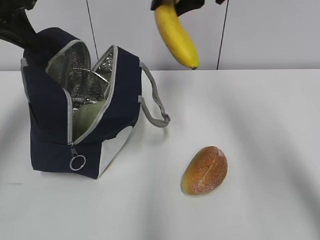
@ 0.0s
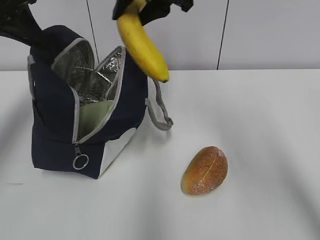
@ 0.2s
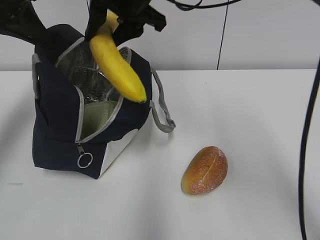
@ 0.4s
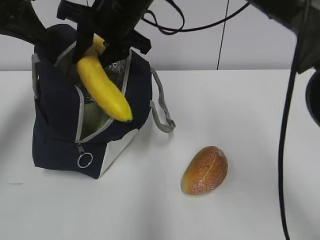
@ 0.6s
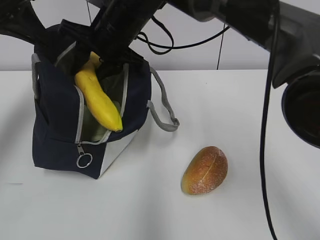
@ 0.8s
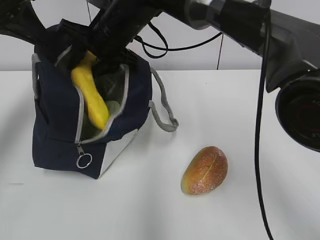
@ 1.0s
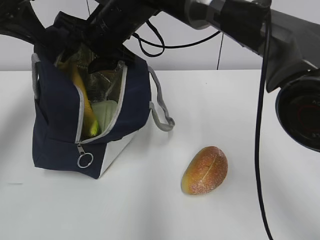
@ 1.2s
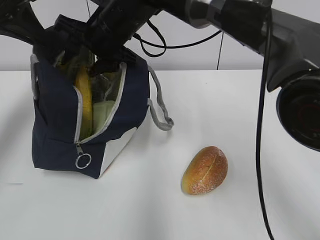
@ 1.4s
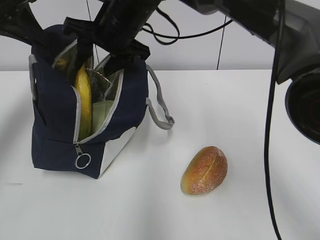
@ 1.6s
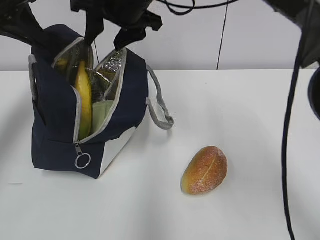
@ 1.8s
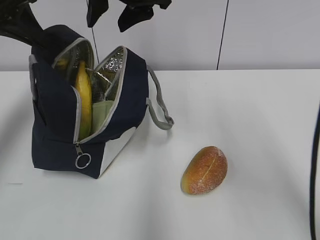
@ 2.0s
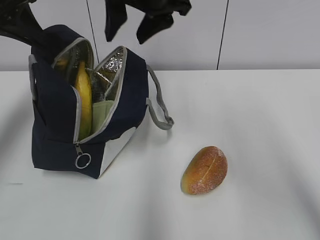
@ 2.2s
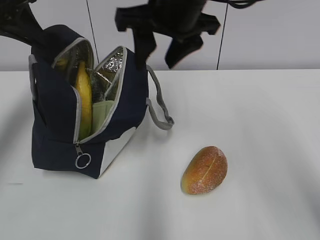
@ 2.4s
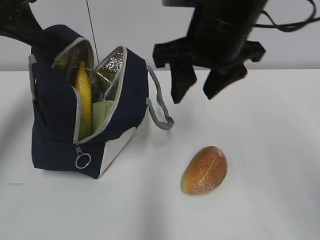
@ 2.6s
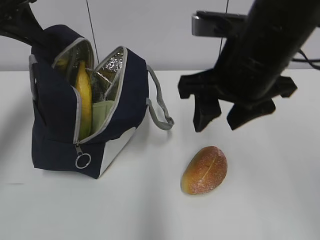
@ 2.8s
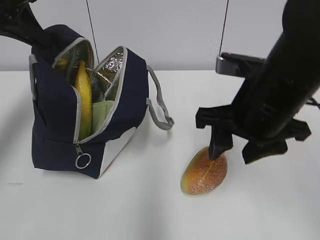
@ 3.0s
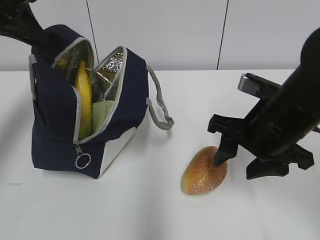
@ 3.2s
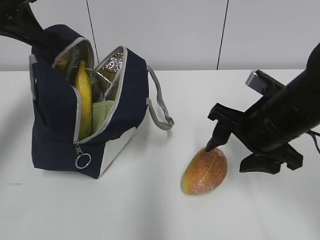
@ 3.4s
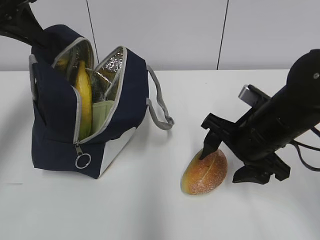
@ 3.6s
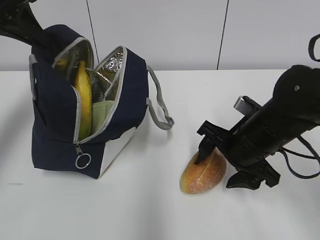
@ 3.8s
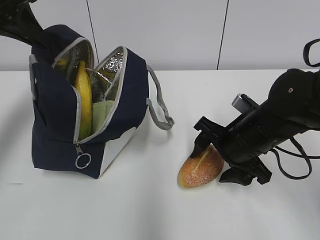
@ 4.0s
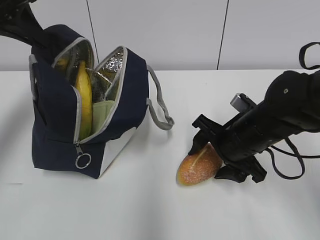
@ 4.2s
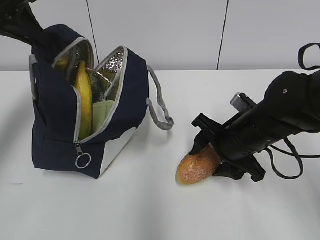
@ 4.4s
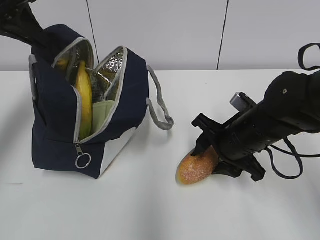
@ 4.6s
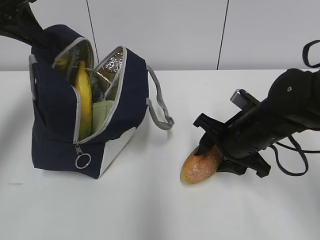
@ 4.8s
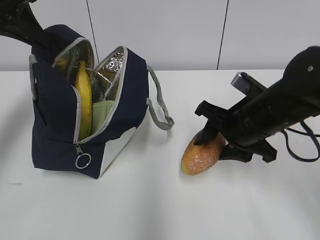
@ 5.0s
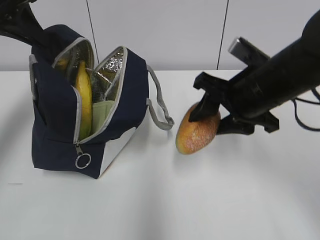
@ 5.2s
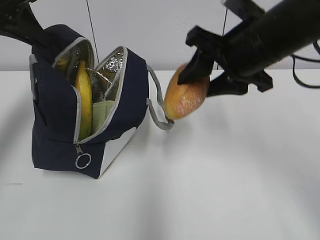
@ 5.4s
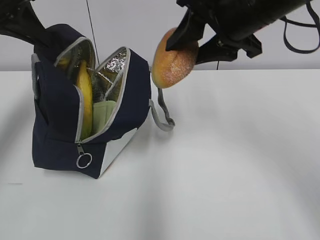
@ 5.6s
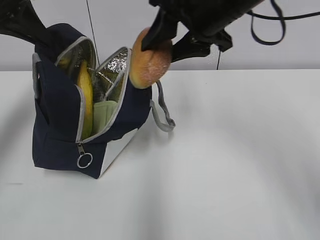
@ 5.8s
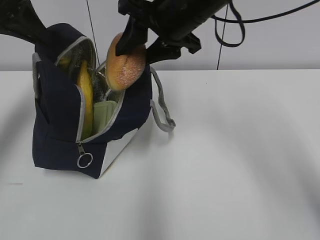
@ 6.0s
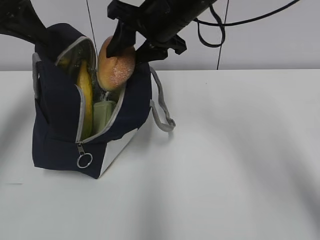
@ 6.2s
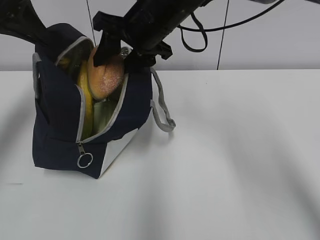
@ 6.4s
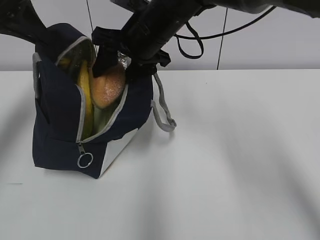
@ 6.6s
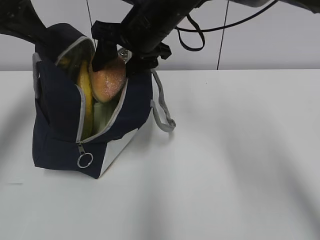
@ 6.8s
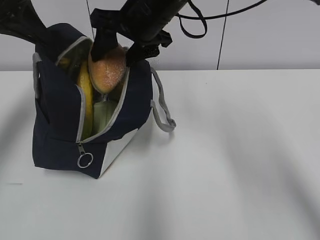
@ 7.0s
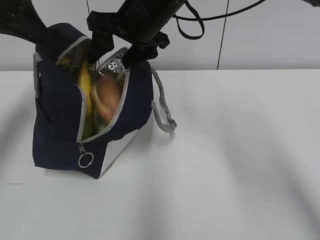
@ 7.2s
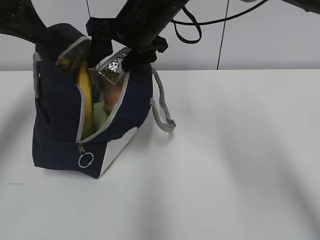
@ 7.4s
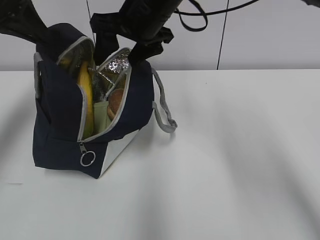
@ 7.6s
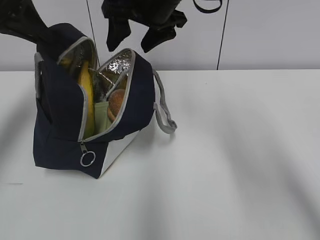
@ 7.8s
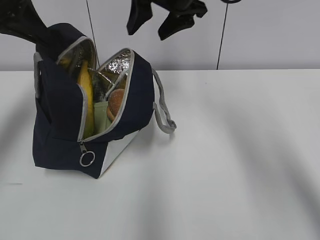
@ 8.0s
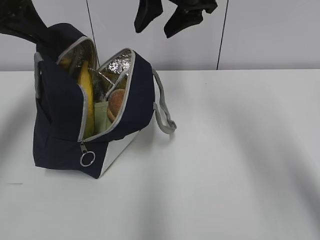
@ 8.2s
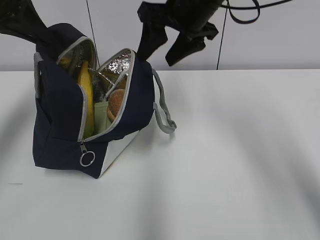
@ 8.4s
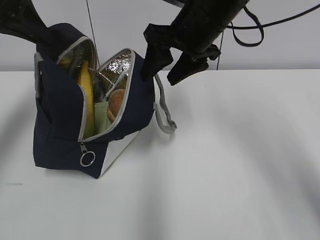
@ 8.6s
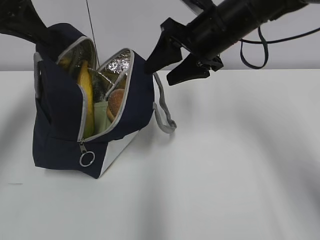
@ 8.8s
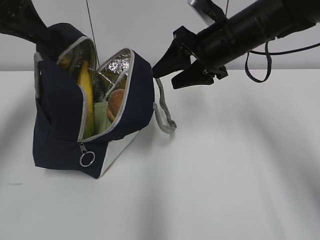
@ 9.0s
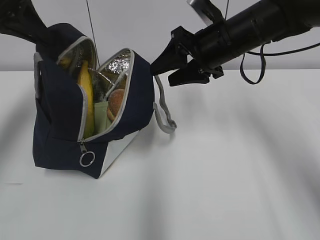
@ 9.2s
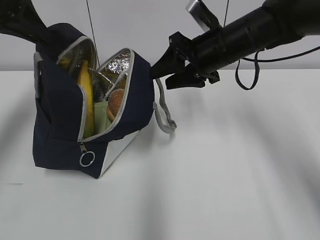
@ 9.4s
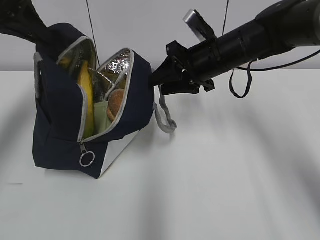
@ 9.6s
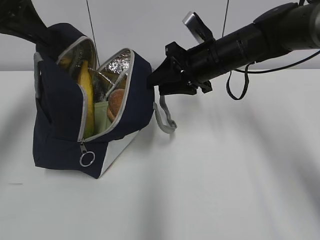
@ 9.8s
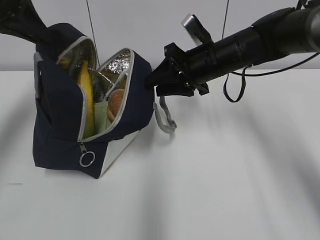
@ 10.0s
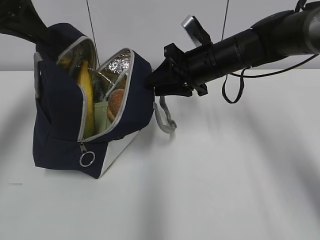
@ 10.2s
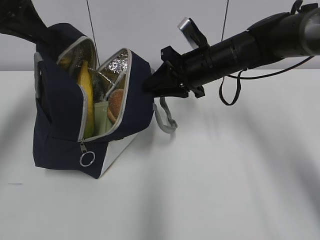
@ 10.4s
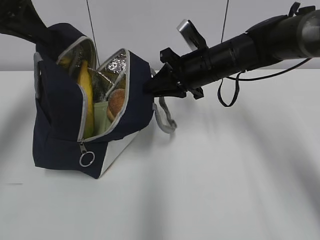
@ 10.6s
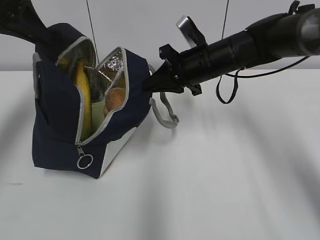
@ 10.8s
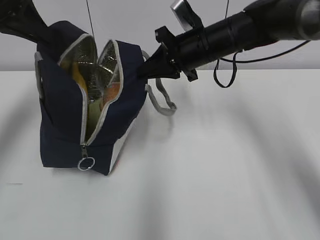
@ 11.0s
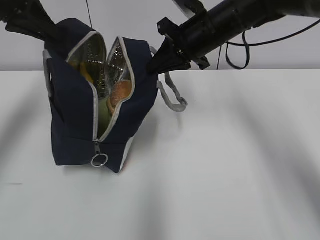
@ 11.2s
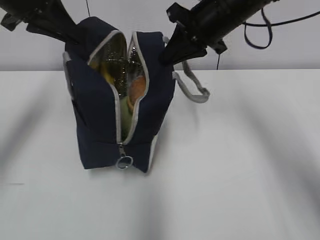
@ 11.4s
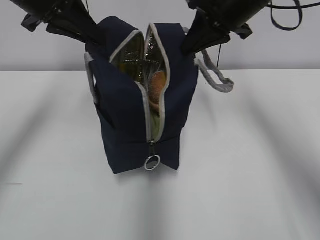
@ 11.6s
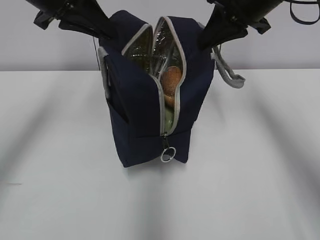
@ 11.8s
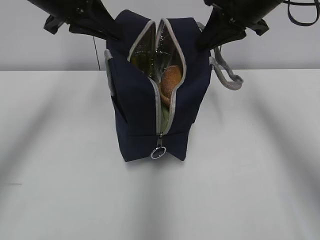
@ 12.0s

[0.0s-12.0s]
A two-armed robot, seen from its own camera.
0.0s to 1.6s: The right gripper goes roughly 15 cm to the left and downward.
1.6s to 3.0s: The right gripper moves to the right and backward, some 25 cm.
3.0s to 4.4s: The right gripper shifts some 10 cm downward.
4.4s to 6.0s: The right gripper travels upward and to the left by about 20 cm.
6.0s to 7.6s: The right gripper shifts some 5 cm to the left.
7.6s to 9.0s: The right gripper heads to the right, covering some 10 cm.
9.0s to 10.4s: The right gripper is displaced downward by approximately 5 cm, and closes up.
10.4s to 12.0s: The left gripper travels to the right by some 10 cm, while the right gripper travels upward and to the right by some 15 cm, and closes its fingers.

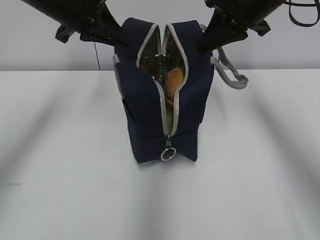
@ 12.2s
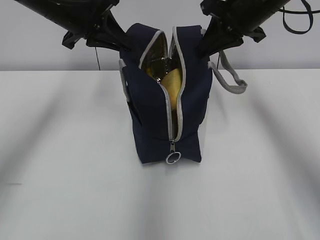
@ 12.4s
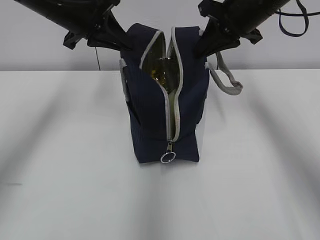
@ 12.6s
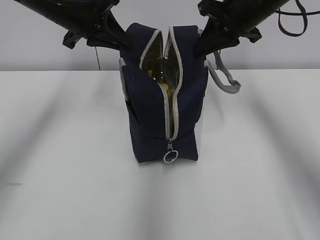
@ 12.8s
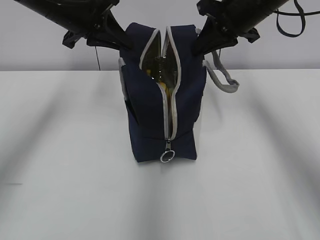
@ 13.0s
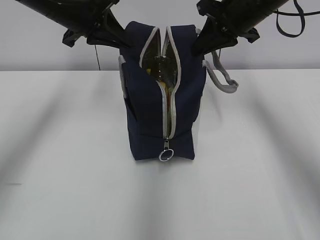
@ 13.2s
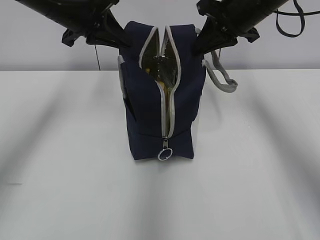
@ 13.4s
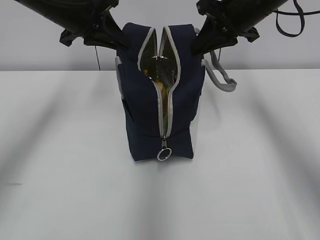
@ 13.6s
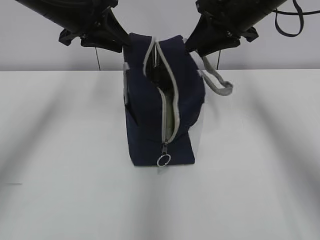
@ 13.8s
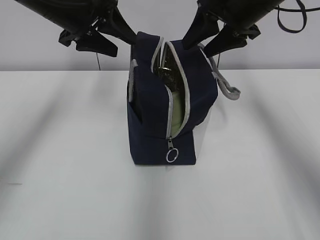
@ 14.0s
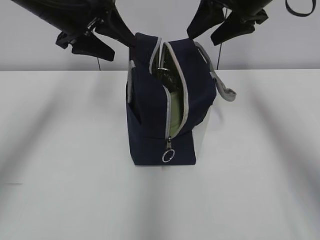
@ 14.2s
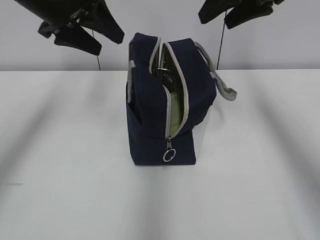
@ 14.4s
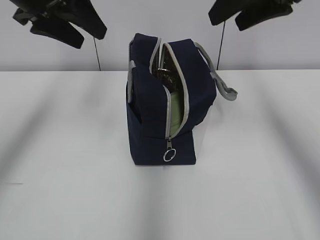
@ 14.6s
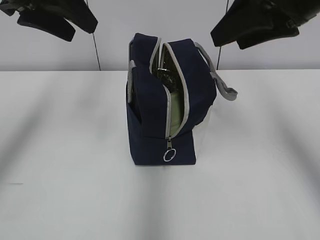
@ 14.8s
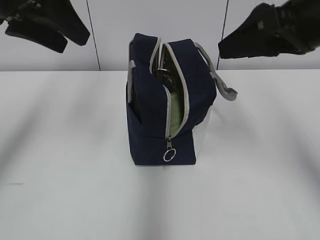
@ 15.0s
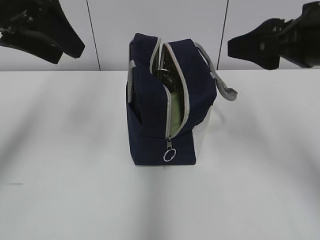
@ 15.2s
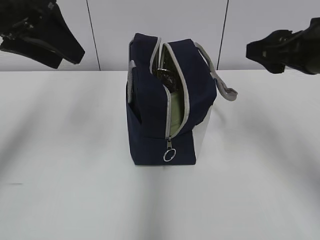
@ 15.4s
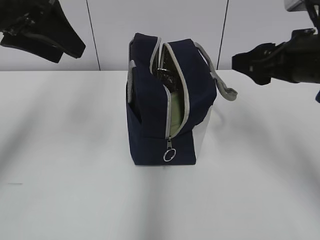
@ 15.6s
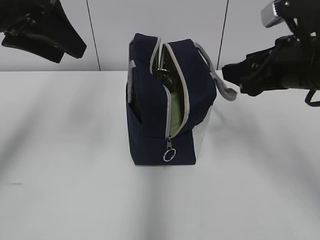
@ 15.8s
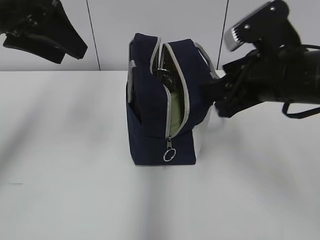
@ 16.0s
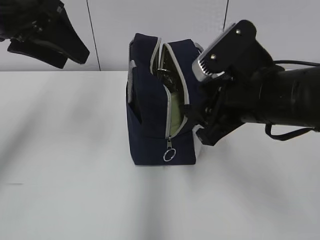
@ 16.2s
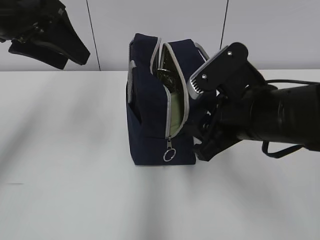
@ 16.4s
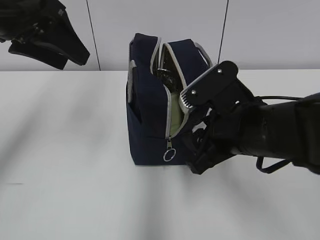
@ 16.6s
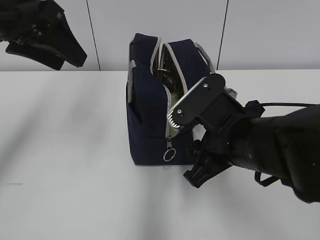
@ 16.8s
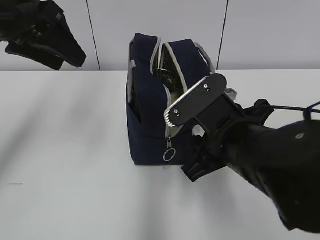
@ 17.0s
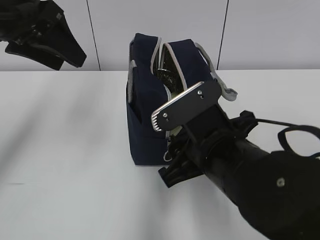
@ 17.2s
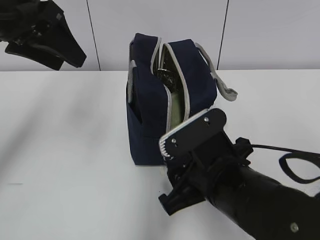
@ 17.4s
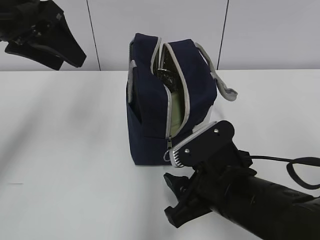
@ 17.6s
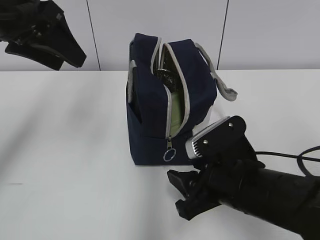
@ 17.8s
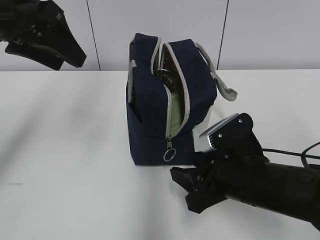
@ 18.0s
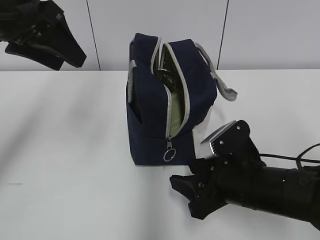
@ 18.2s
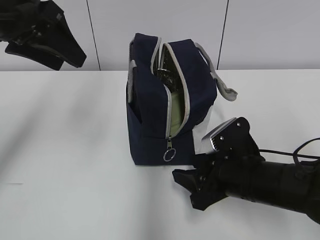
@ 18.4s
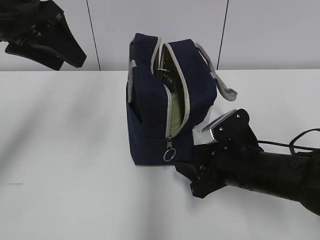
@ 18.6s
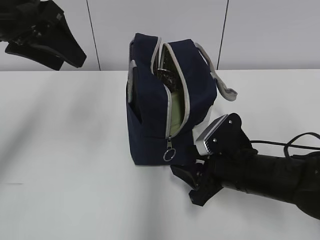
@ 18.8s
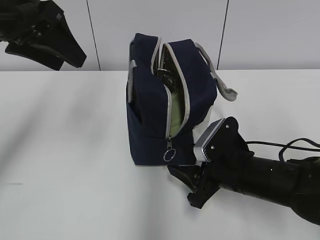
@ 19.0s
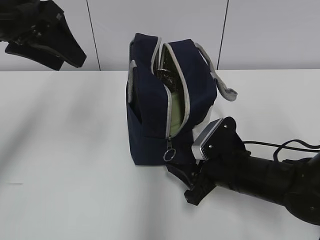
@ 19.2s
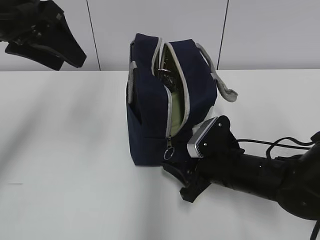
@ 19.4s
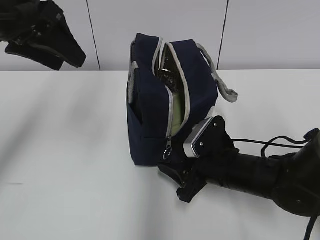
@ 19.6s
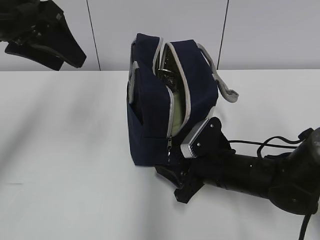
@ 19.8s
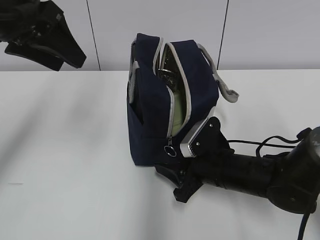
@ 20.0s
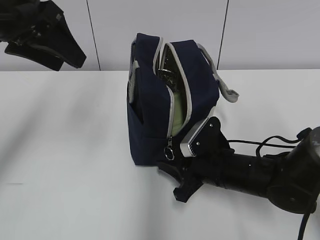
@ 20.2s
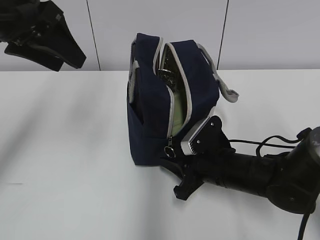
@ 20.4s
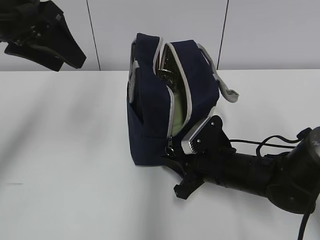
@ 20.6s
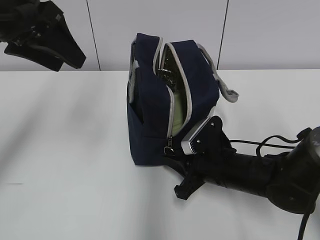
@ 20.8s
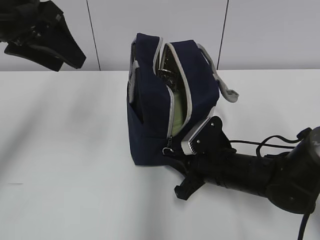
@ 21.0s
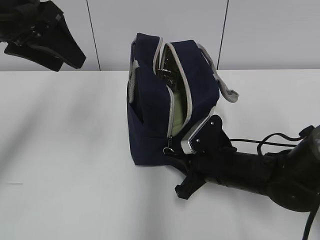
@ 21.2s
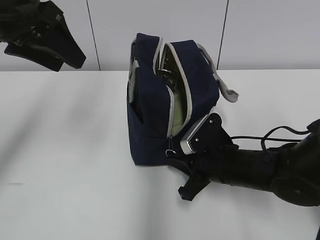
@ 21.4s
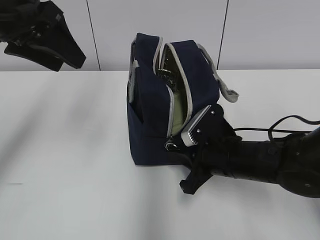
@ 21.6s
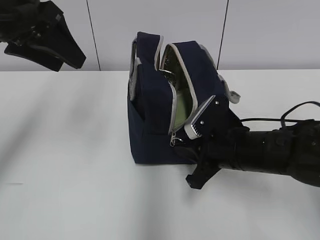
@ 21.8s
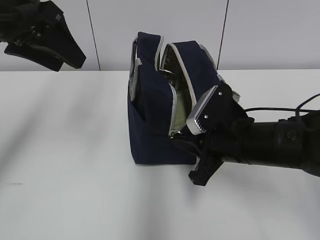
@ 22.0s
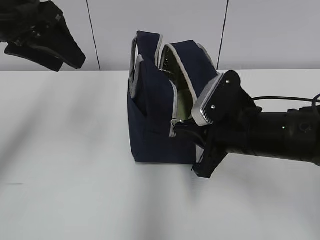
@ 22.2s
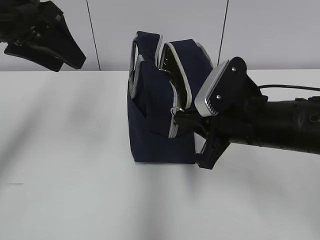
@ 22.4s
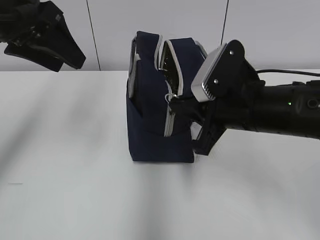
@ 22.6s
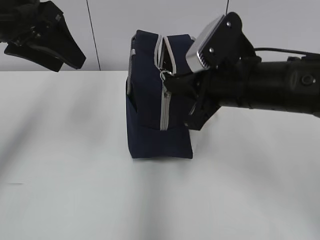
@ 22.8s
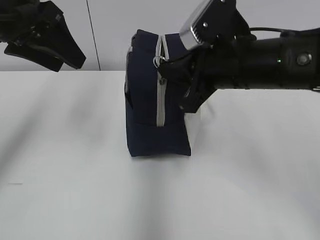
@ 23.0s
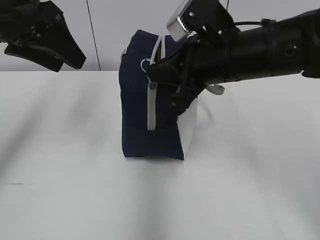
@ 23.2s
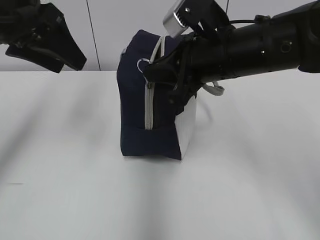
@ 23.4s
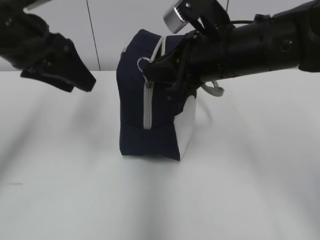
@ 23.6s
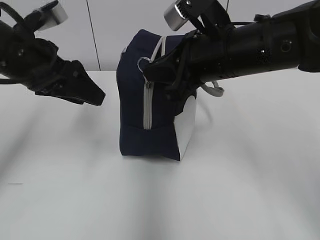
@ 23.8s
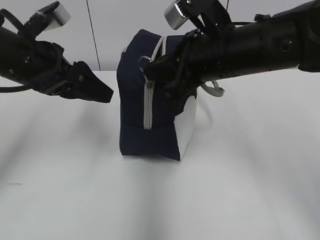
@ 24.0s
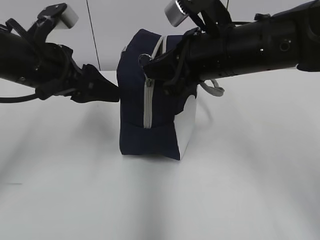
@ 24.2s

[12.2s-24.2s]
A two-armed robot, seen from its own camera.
12.2s to 13.8s: The right gripper opens up.
13.8s to 15.2s: The right gripper travels backward by some 15 cm, and opens its fingers. The left gripper heads backward and upward, covering approximately 10 cm, and opens its fingers.
15.2s to 16.6s: The right gripper travels downward and to the left by about 15 cm.
16.6s to 18.2s: The right gripper shifts approximately 10 cm downward.
18.2s to 19.8s: The right gripper heads forward, covering roughly 5 cm.
19.8s to 21.2s: The right gripper closes.
21.2s to 22.6s: The right gripper travels upward by approximately 15 cm.
22.6s to 24.2s: The left gripper shifts roughly 10 cm downward; the right gripper travels upward by approximately 5 cm.
